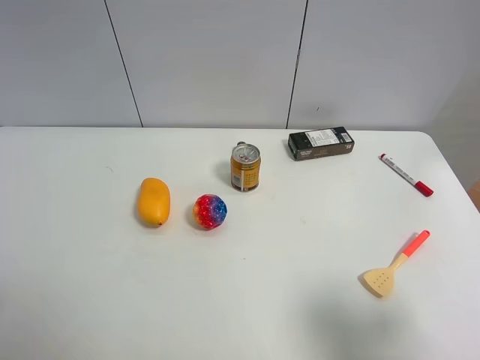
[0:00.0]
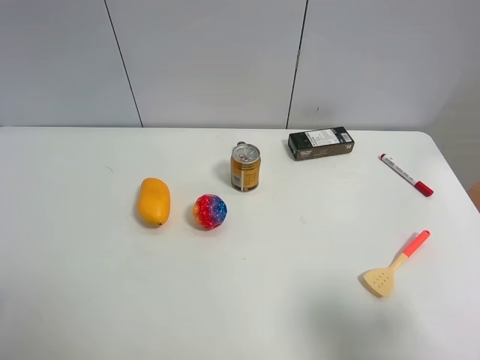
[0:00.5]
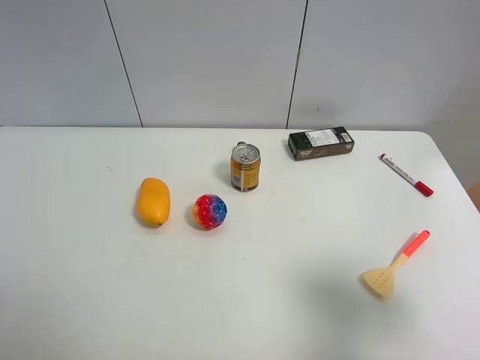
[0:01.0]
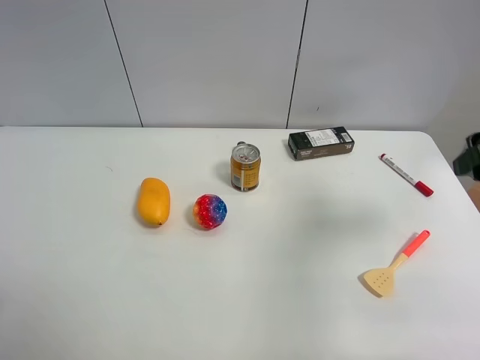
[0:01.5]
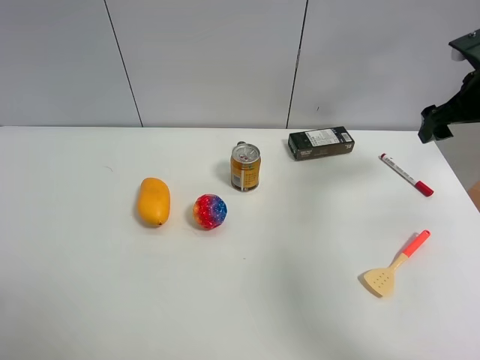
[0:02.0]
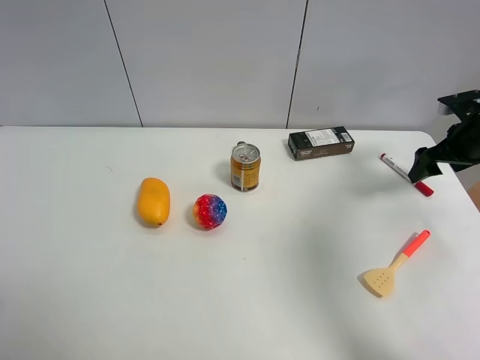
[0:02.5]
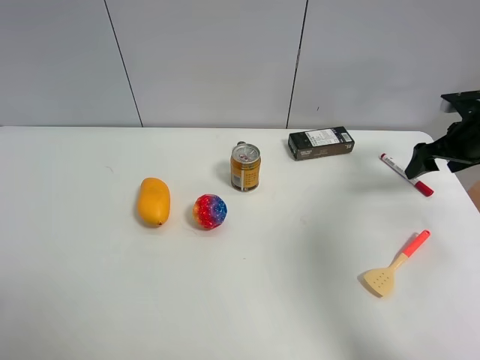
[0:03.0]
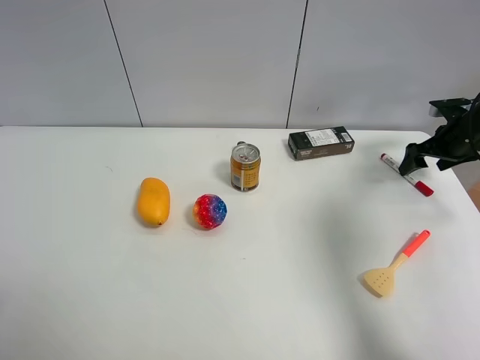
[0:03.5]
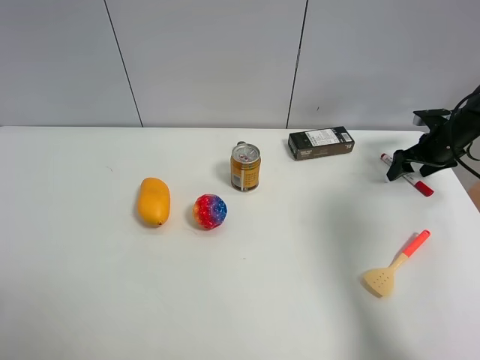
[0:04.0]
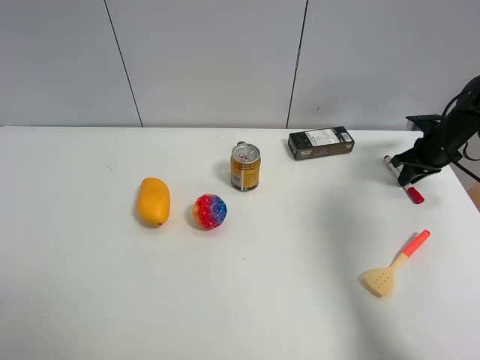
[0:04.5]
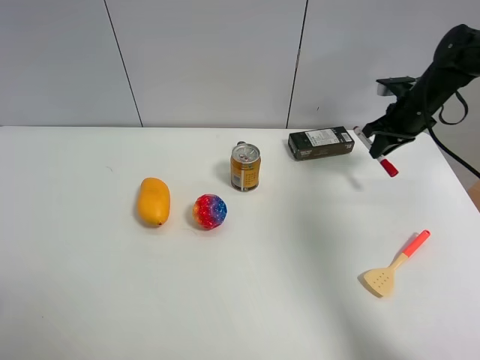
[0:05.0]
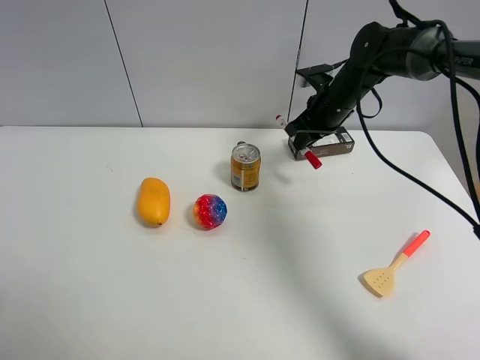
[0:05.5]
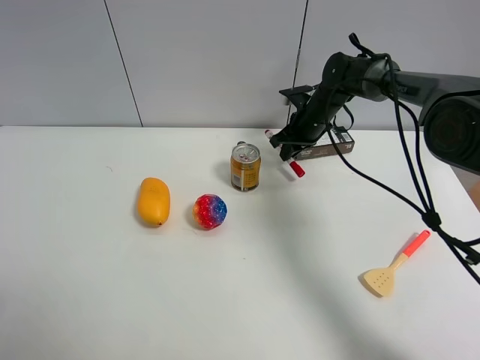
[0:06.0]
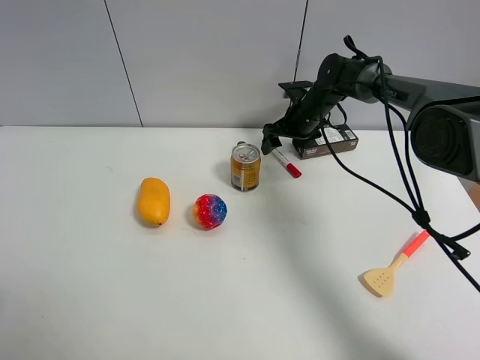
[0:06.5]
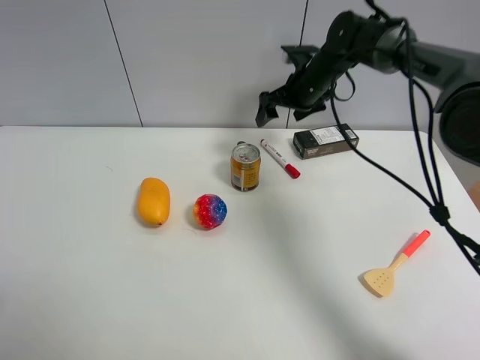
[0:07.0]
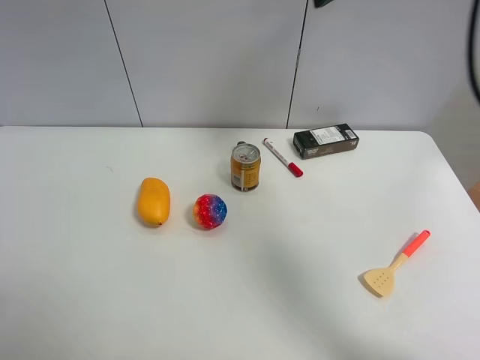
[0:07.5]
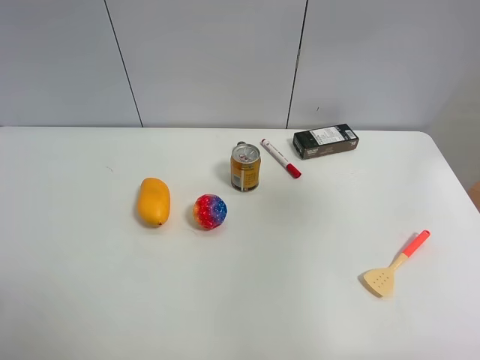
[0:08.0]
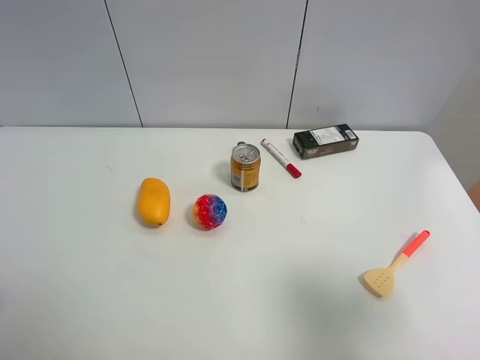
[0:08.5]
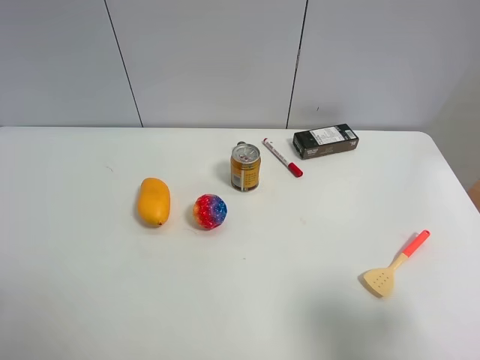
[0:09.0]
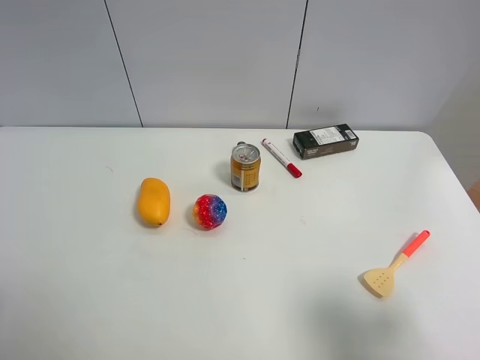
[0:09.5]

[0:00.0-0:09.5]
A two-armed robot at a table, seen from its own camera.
Task of the whole recording: the gripper move the object.
Step, 0:00.0 to 0:04.0: Grasp the red marker pen with the right gripper.
Step, 0:04.5 to 0:06.0: Place the red marker pen on the table with the right gripper.
0:00.0 to 0:02.0: The right gripper moves forward, some 35 cm.
0:02.0 to 0:04.0: The right gripper travels downward, forward and to the right by approximately 20 cm.
0:04.0 to 0:05.5: The right gripper heads to the left, covering approximately 25 cm, and closes its fingers.
0:05.5 to 0:07.5: The right gripper goes about 25 cm upward, and opens.
0:07.5 to 0:09.5: The right gripper travels backward and downward by some 40 cm.

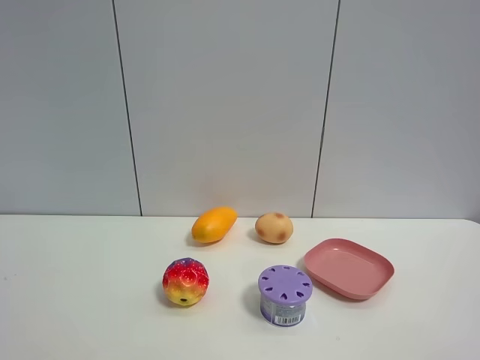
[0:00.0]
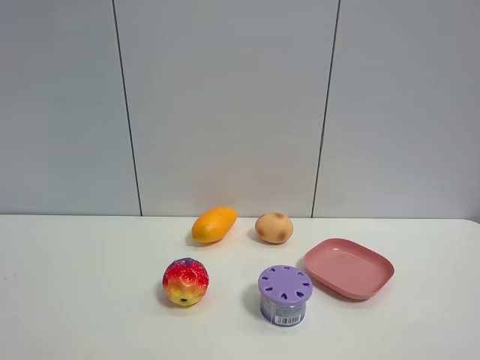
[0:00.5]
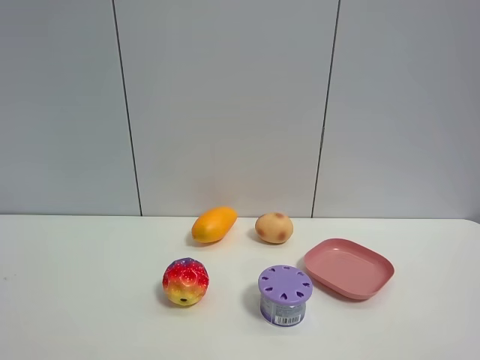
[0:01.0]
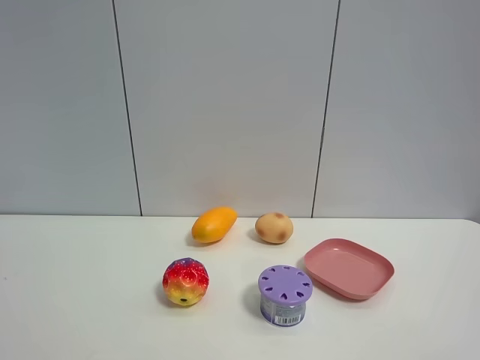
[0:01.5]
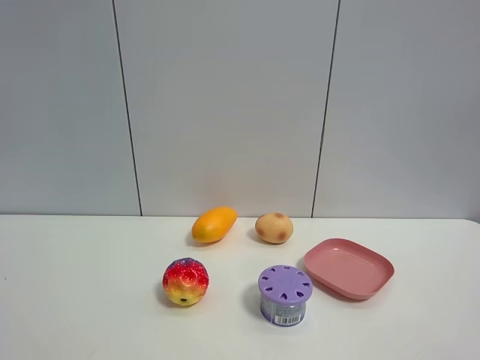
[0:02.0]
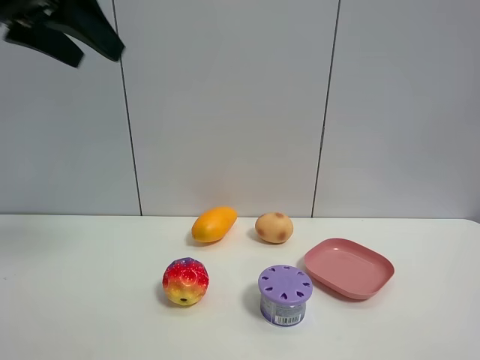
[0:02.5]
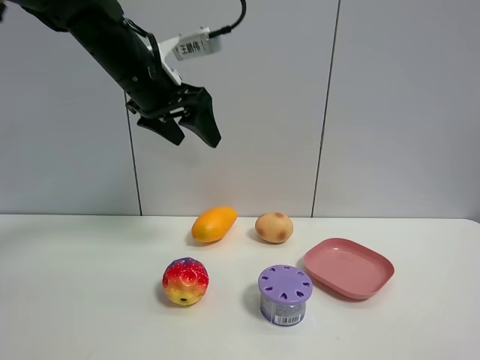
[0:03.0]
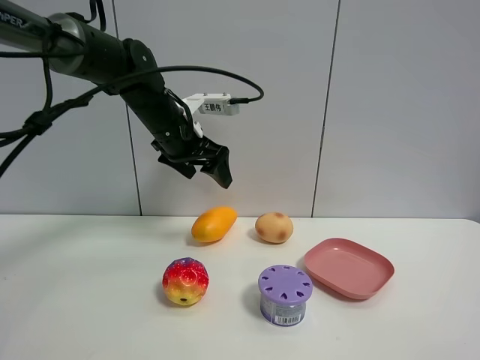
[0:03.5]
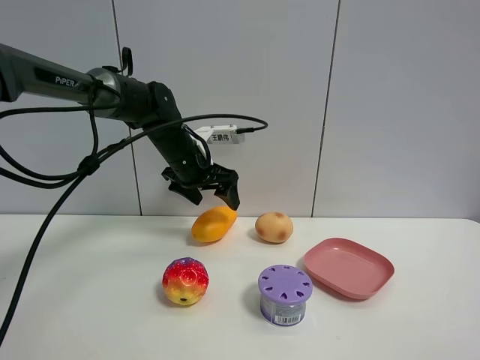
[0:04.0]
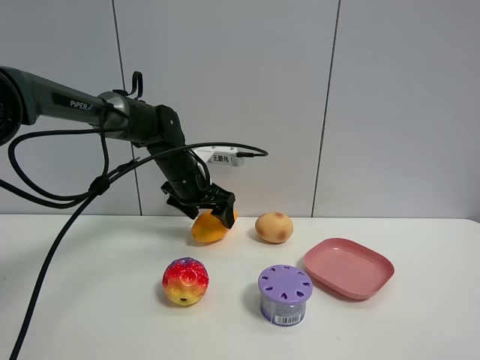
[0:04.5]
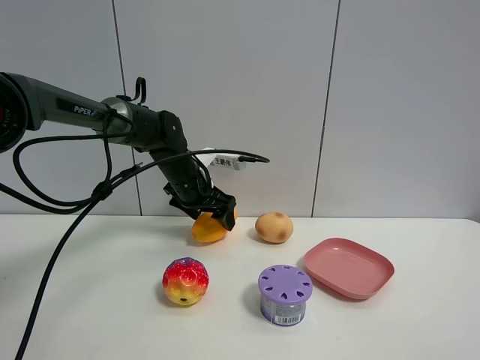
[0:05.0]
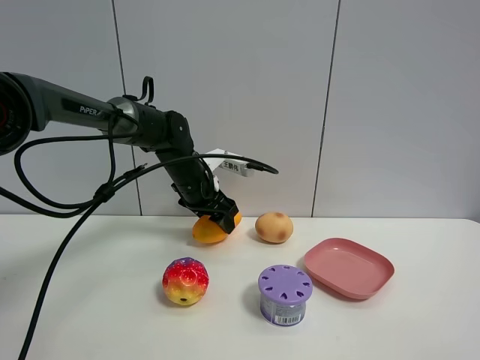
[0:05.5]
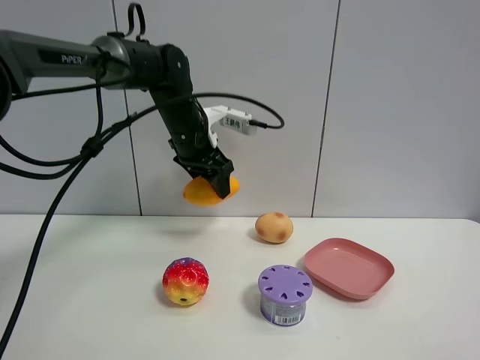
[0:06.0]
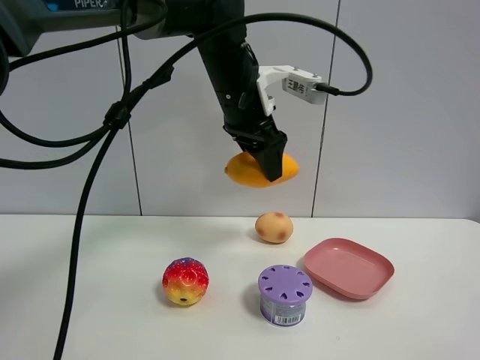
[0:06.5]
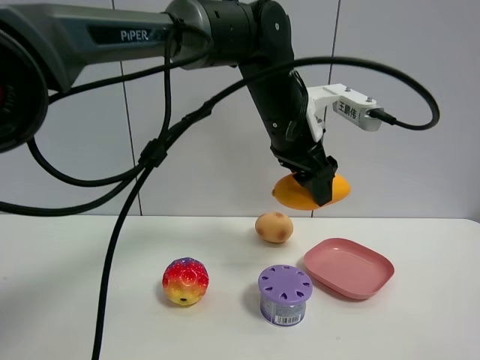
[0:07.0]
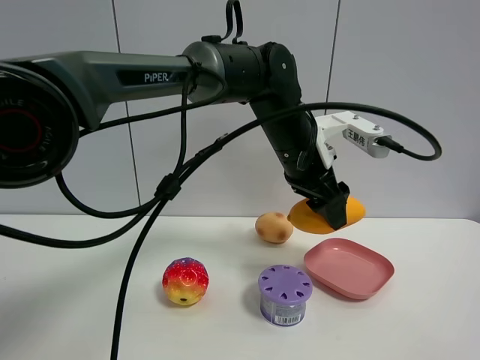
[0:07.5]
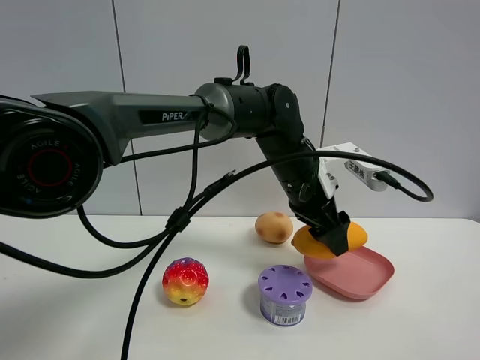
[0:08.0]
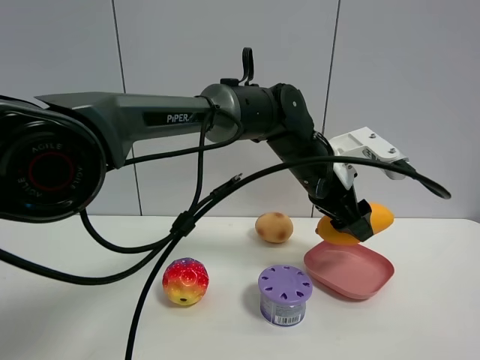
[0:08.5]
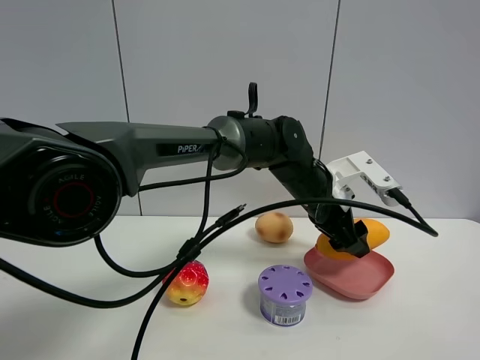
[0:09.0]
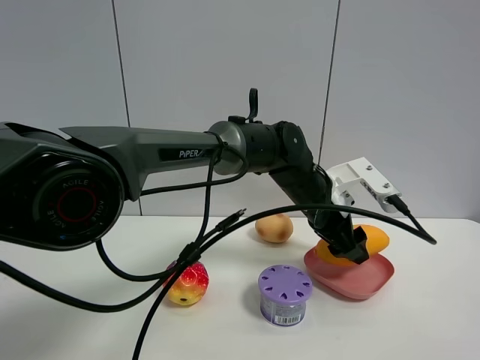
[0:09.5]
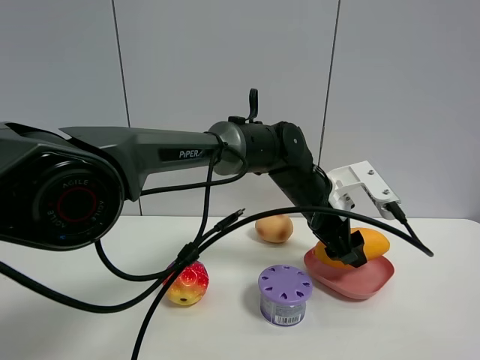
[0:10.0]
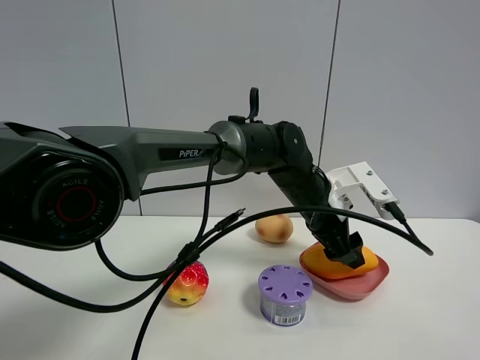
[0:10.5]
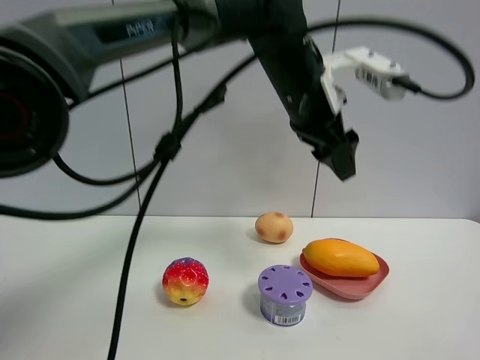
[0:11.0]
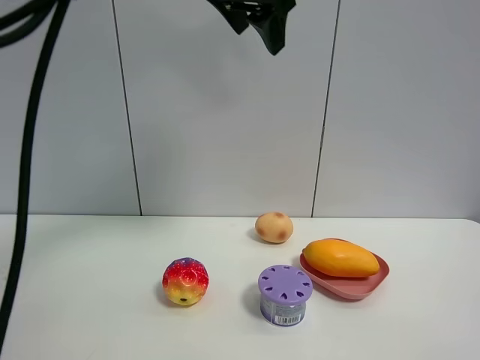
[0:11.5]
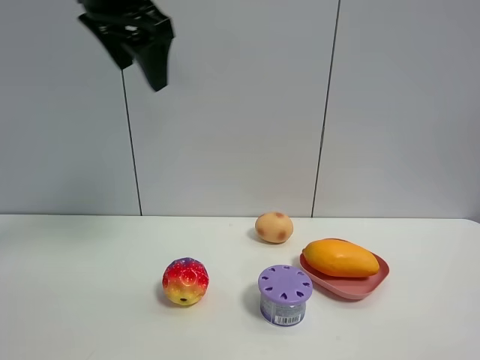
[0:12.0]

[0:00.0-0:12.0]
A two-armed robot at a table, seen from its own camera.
Task of the whole recording: the gripper move the object.
Step, 0:00.0 to 0:05.0: Grasp the mango with the left gripper.
Step, 0:05.5 to 0:10.5: Place the mango into the pink plate with the left gripper.
0:02.0 to 0:04.0: The left gripper heads forward, downward and to the right, covering approximately 50 cm, and opens up.
0:04.0 to 0:06.0: The left gripper closes its fingers.
0:06.0 to 0:08.0: The left gripper is displaced to the right and backward by approximately 20 cm.
0:10.0 to 0:12.0: The left gripper is displaced upward and to the left by some 35 cm.

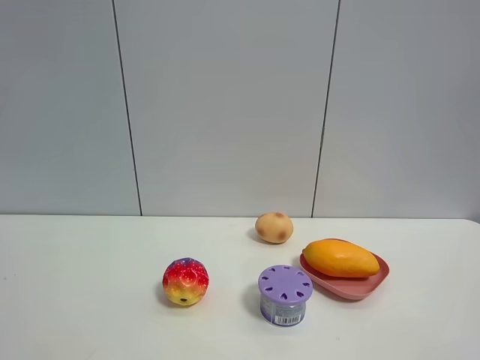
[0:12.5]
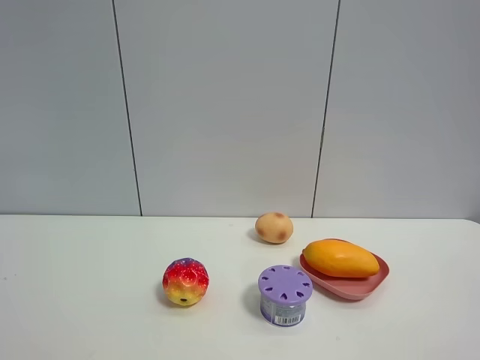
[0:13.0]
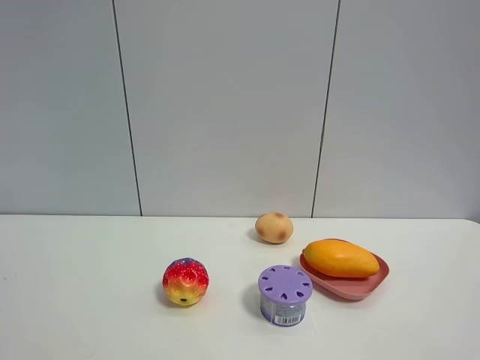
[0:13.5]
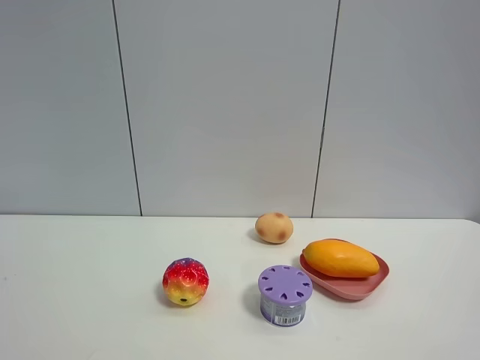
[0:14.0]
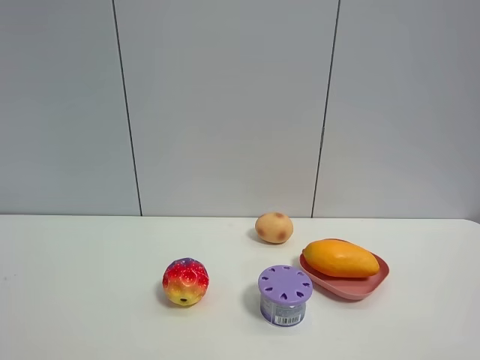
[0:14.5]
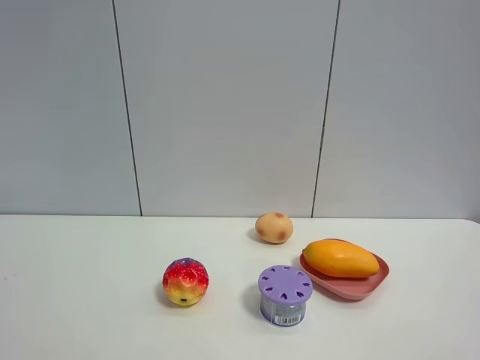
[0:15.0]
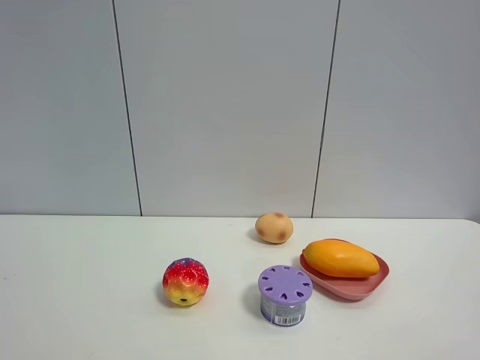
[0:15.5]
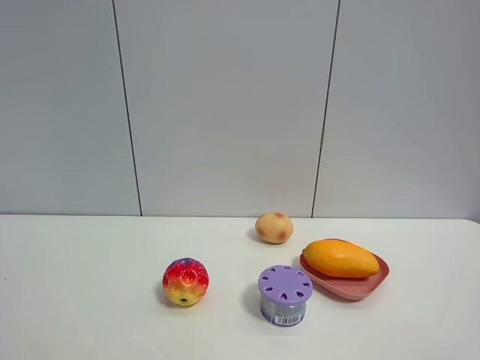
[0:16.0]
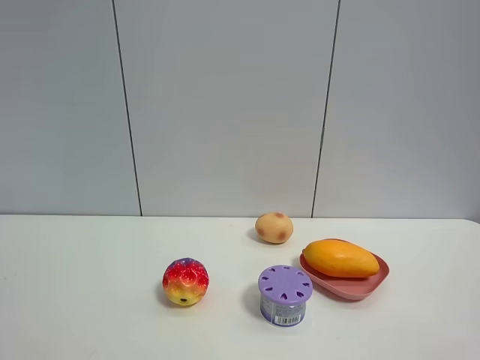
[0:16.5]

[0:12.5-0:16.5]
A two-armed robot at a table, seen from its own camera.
Task of the whole recording: the gripper move the object.
0:14.5 to 0:16.5: Both grippers stay put.
